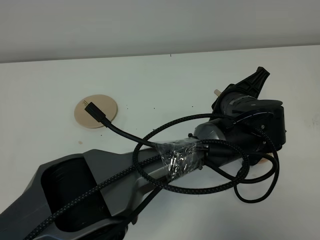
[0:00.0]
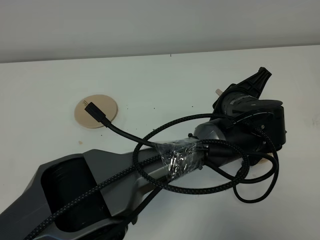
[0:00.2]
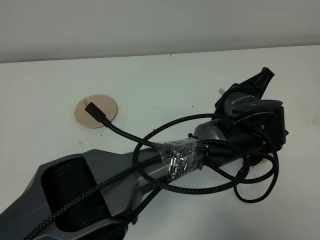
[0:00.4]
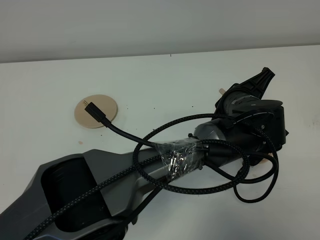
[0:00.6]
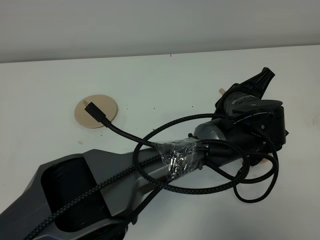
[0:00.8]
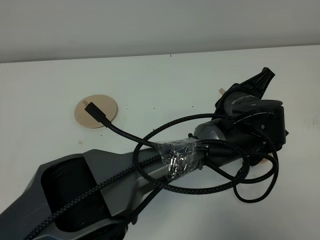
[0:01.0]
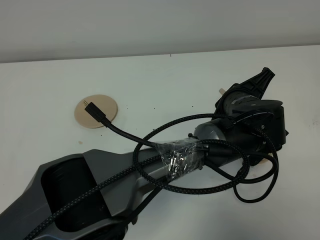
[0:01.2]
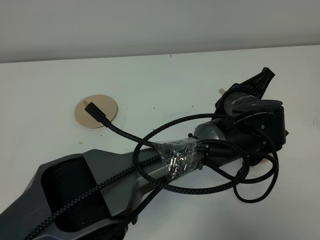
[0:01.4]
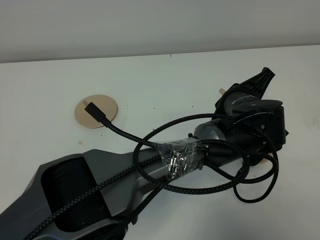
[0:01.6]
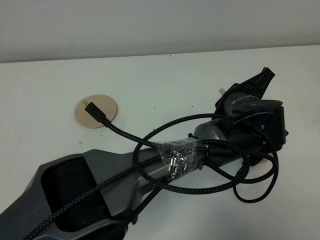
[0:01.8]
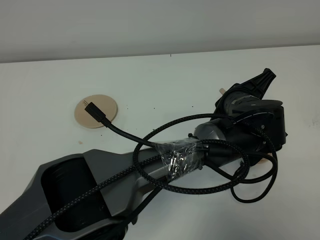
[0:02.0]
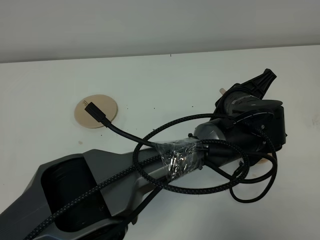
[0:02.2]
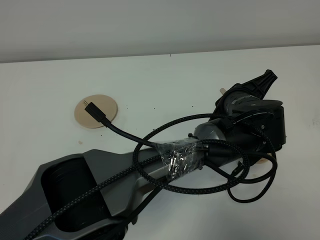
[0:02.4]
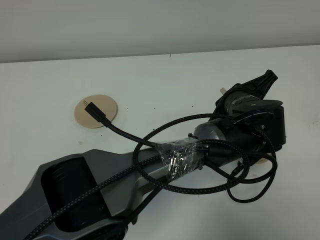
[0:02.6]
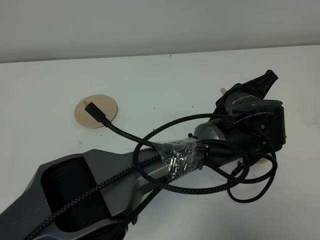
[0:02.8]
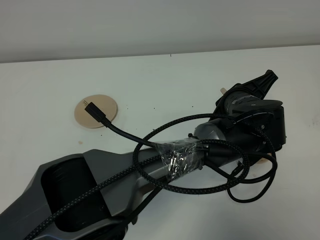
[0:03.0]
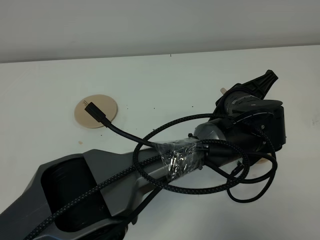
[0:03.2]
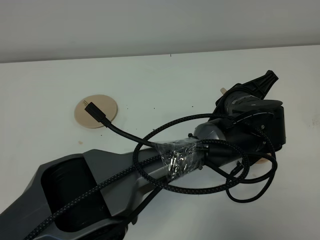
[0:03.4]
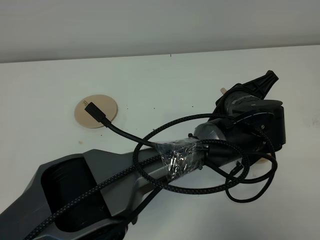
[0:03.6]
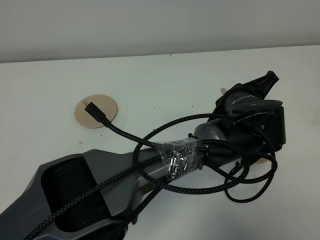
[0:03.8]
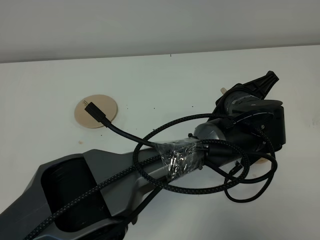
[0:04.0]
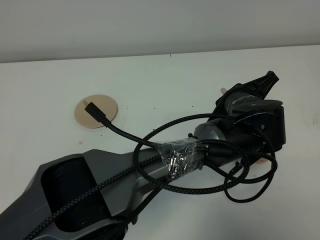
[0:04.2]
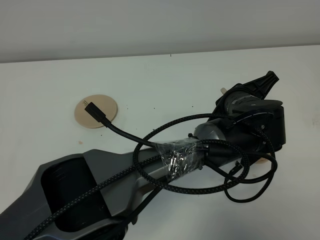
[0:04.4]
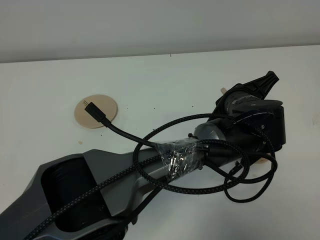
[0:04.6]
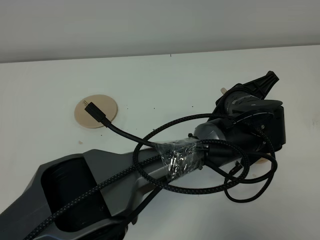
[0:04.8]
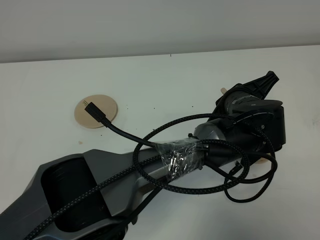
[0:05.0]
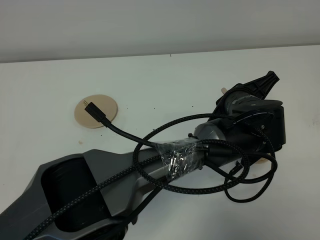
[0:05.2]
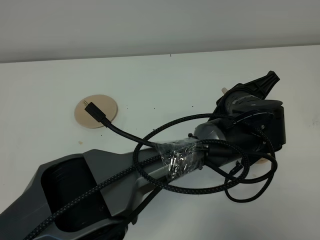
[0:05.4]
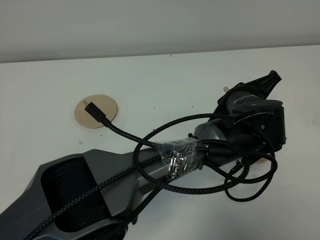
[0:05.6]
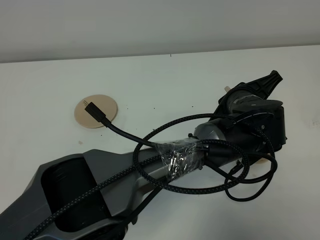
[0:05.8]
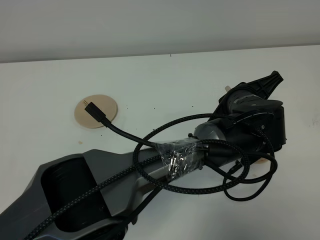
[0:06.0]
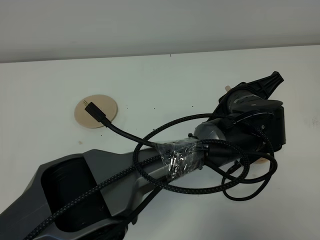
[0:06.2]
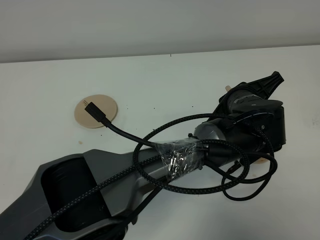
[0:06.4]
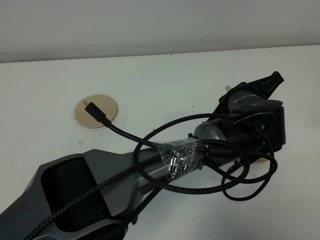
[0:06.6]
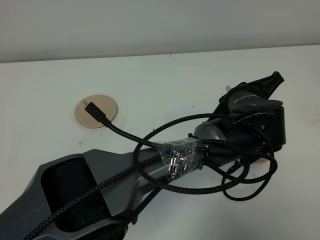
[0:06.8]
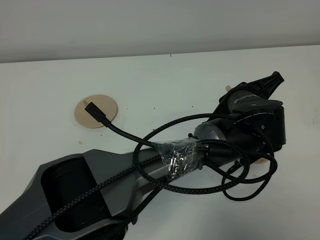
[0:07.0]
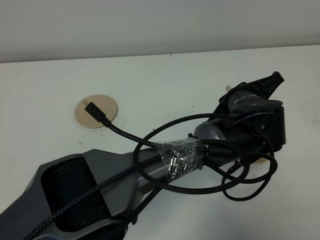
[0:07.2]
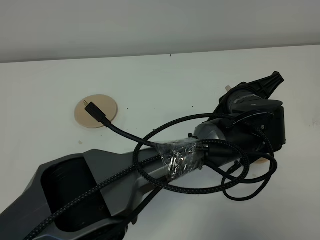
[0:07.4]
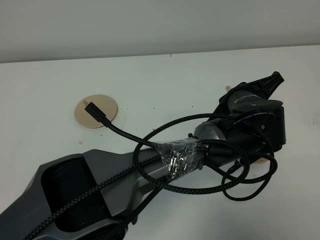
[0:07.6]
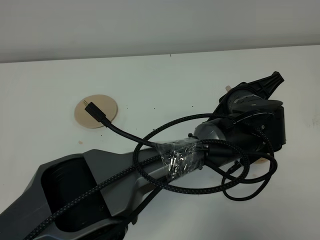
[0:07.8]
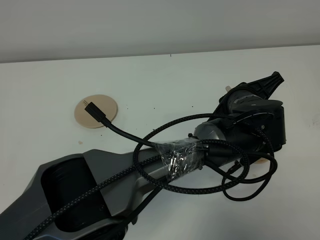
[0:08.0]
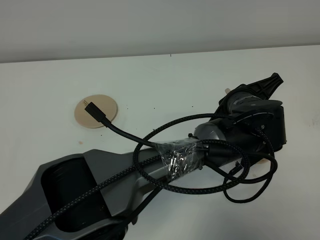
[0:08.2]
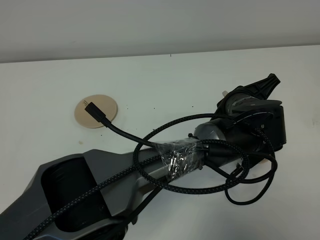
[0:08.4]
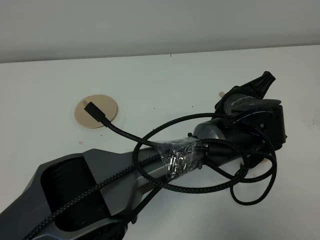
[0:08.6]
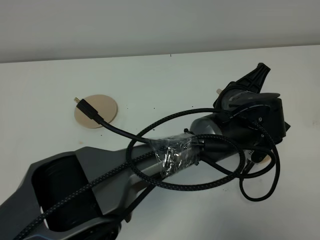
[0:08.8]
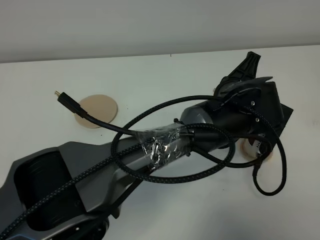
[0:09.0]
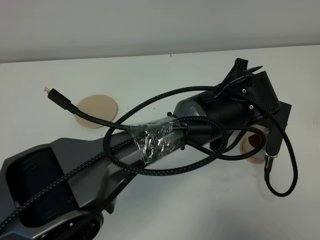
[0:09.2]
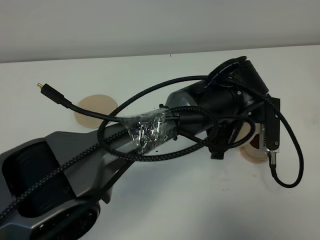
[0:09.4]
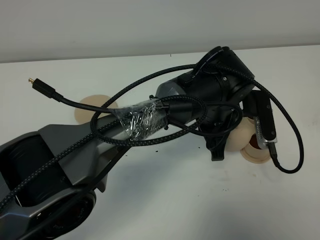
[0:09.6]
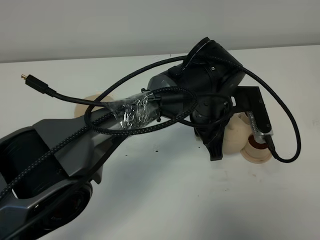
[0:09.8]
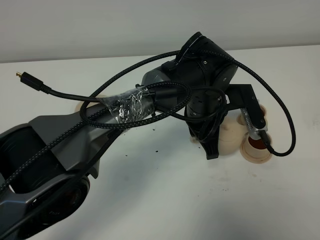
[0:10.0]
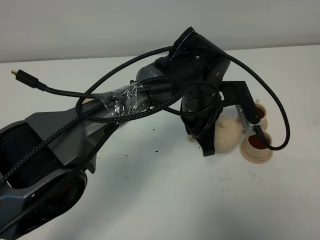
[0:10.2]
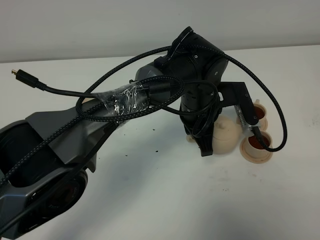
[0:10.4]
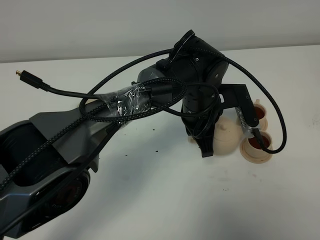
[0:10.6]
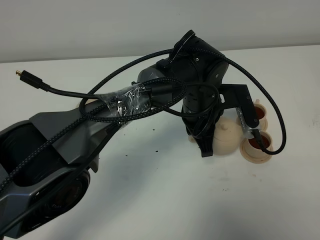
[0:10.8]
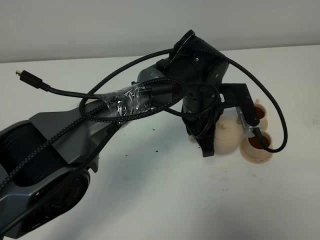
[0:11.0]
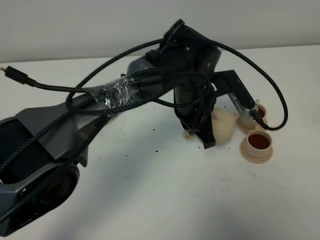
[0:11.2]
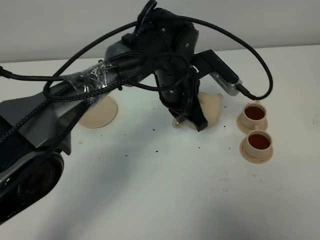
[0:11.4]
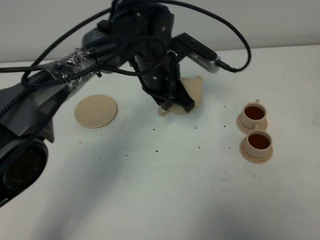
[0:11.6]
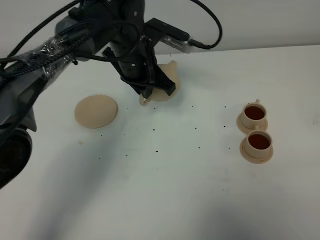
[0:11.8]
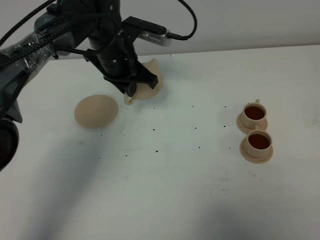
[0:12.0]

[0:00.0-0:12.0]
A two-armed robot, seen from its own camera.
Task of the whole recording: grasp the brown teapot and pour the tea into the two brown teacups one by one, put the brown teapot back in its original place.
Step, 0:00.0 to 0:09.0: Pour tea into the teacup with the left gripper.
0:00.0 to 0:01.6: The two grippers keep their place.
0:01.6 to 0:03.0: The grippers move only a little.
0:03.0 to 0:06.0: The two grippers keep their place.
0:06.0 to 0:07.6: Neither gripper changes place.
0:09.0 to 0:10.4: The left gripper moves to the left, about 5 cm.
0:10.4 to 0:12.0: The left gripper travels to the left and forward by about 20 cm.

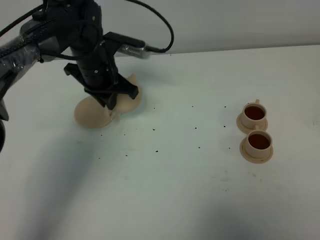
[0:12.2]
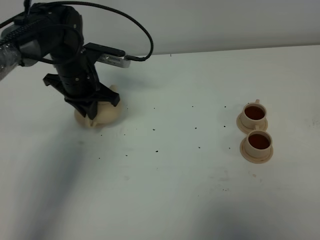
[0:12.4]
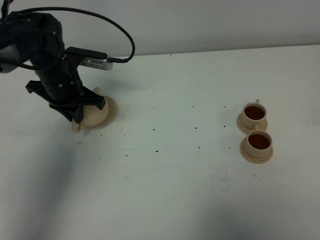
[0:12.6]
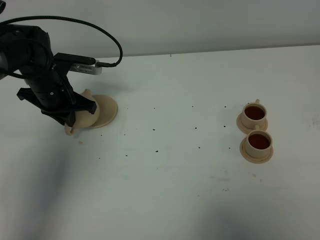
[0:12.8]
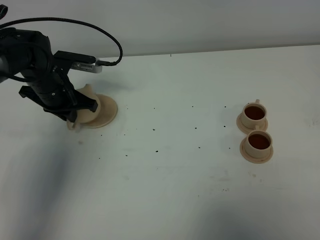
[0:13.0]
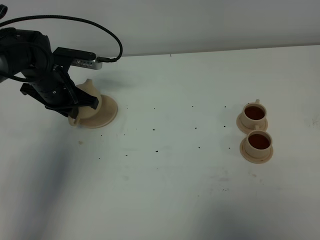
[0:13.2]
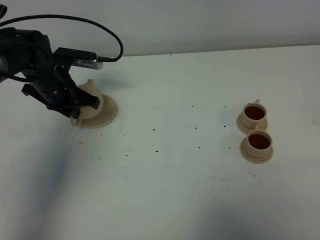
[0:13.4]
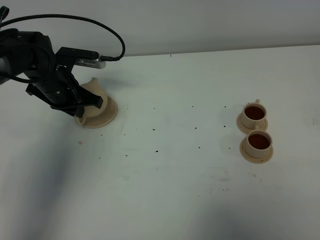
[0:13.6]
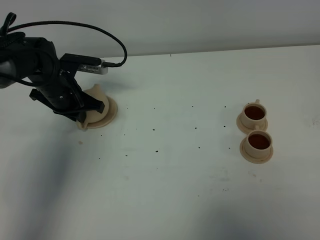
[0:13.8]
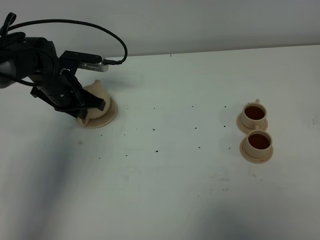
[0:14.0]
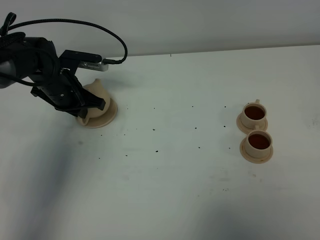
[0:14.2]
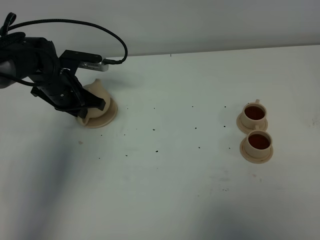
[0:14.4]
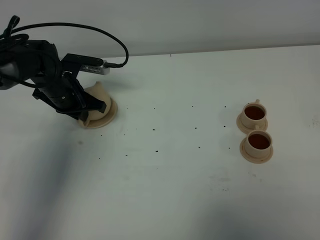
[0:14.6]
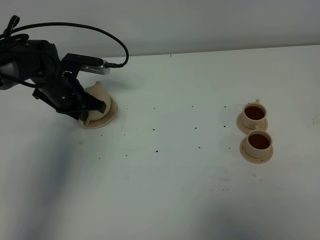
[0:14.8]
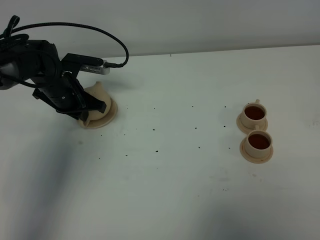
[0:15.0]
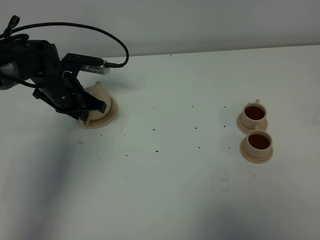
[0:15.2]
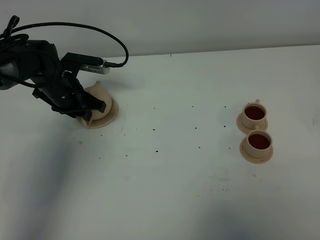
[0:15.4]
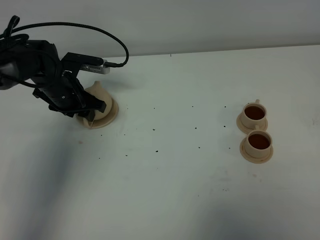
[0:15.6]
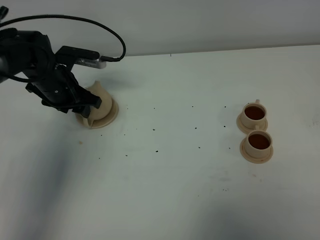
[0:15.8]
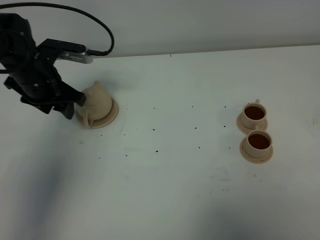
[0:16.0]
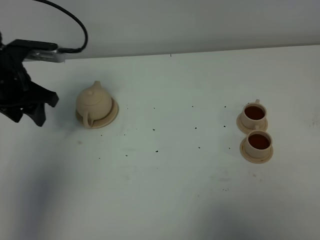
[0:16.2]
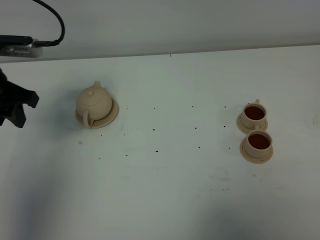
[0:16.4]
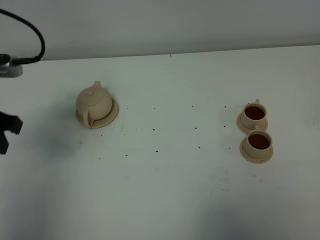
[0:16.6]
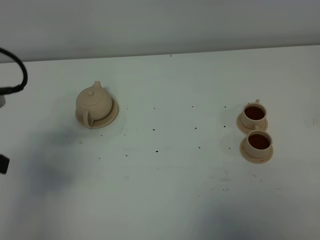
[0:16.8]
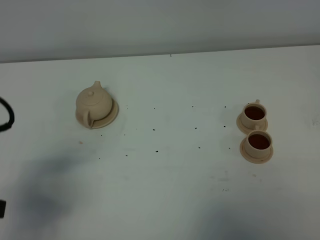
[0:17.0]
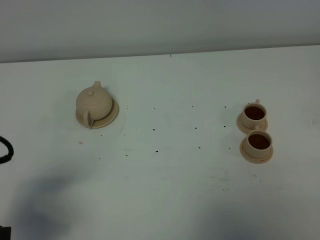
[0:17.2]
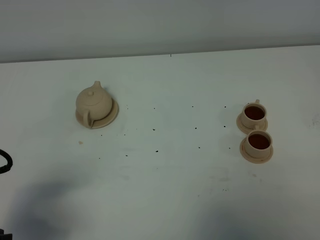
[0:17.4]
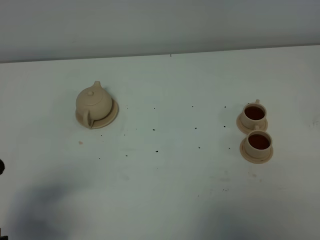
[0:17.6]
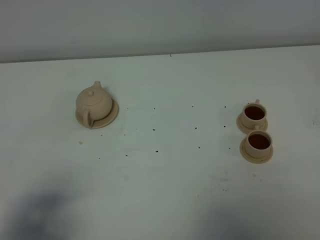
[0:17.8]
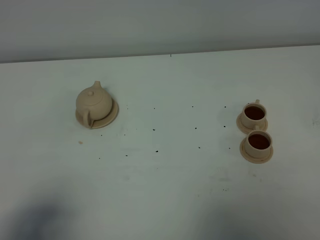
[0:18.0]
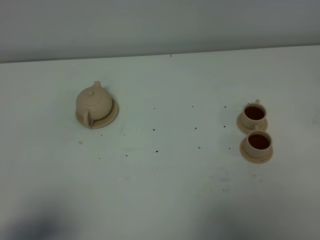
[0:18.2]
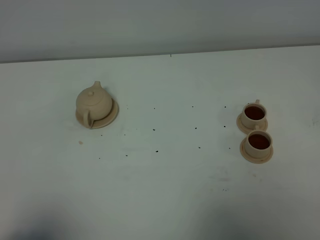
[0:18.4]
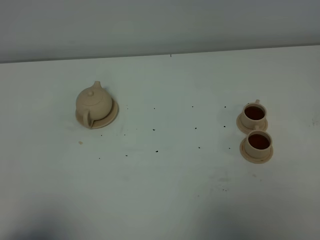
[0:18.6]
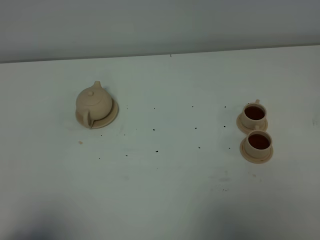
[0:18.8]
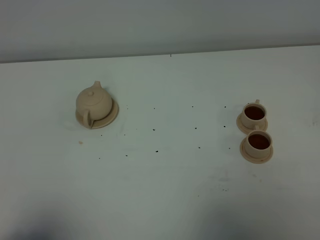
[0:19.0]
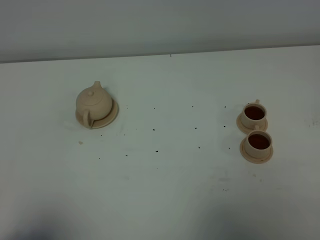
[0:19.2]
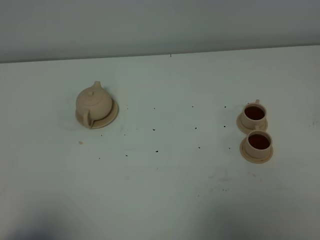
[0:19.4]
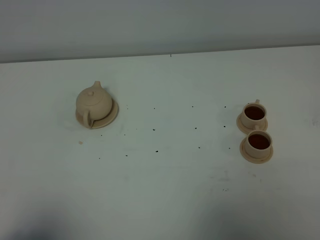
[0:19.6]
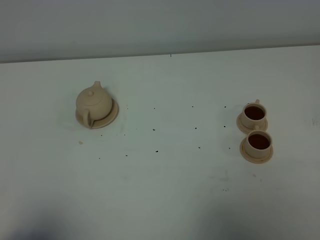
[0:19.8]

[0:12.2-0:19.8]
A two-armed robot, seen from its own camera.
Task of the whole recording: grasp the brown teapot and pour the tea into the two brown teacups one by one, put the brown teapot back in its original place.
0:12.2 to 0:13.8: The left gripper goes about 10 cm to the left.
0:13.8 to 0:15.2: Both grippers stay put.
0:15.2 to 0:16.8: The left gripper heads backward and upward, covering approximately 30 cm, and opens its fingers.
0:16.8 to 0:18.2: The left gripper goes approximately 15 cm backward.
